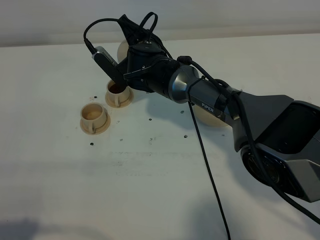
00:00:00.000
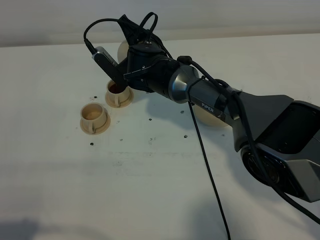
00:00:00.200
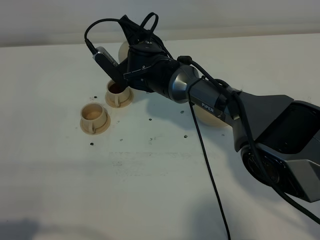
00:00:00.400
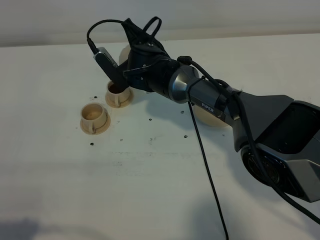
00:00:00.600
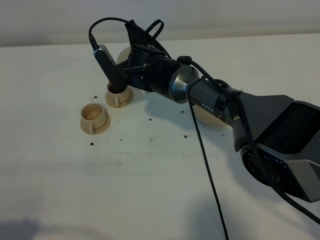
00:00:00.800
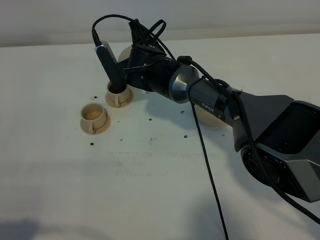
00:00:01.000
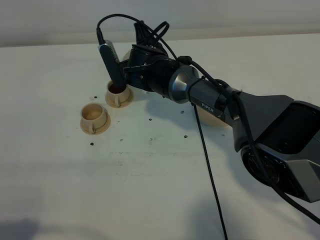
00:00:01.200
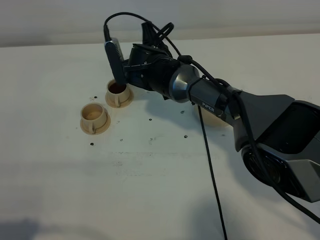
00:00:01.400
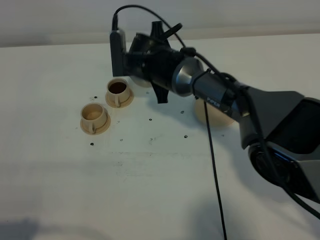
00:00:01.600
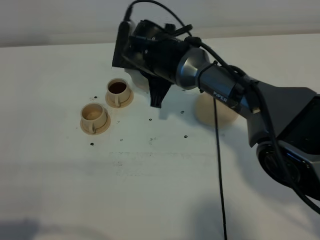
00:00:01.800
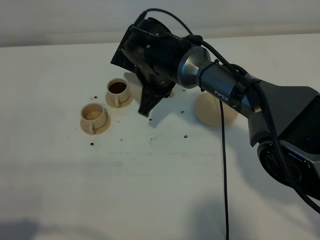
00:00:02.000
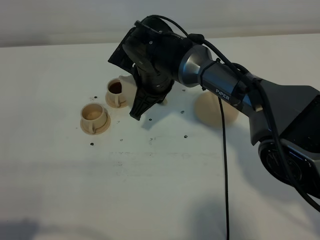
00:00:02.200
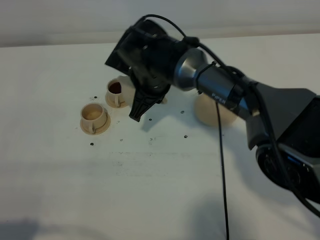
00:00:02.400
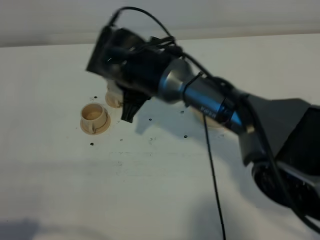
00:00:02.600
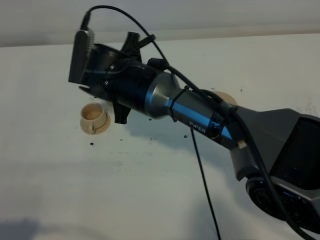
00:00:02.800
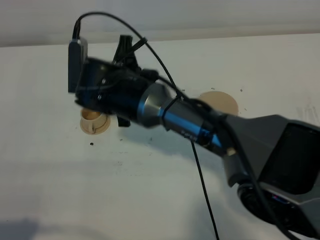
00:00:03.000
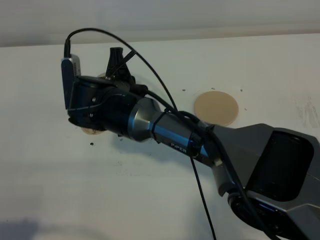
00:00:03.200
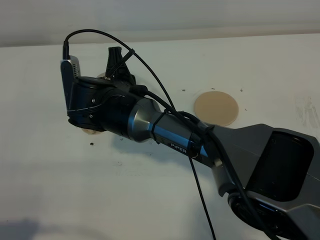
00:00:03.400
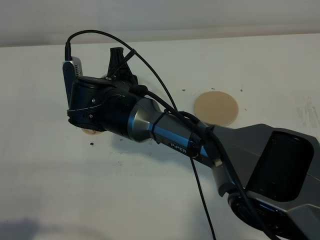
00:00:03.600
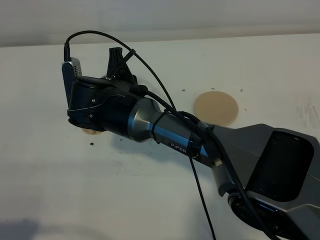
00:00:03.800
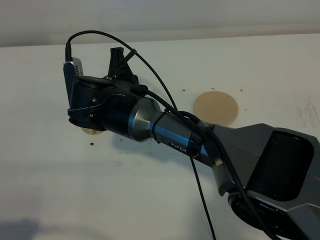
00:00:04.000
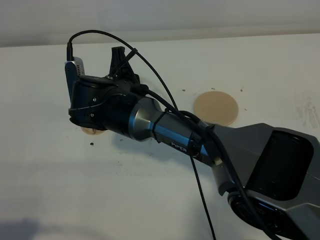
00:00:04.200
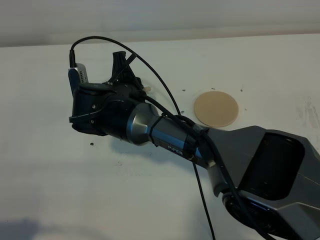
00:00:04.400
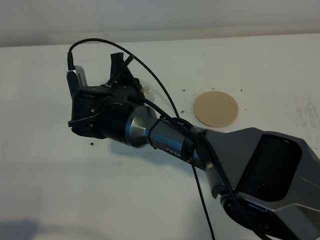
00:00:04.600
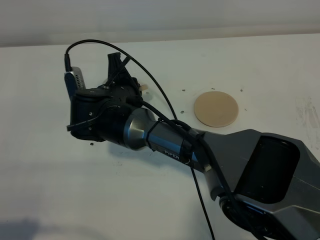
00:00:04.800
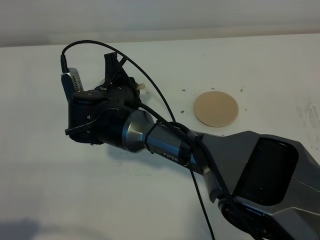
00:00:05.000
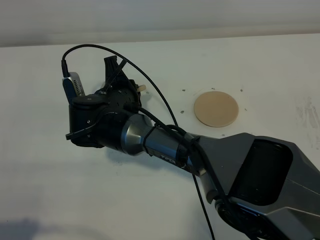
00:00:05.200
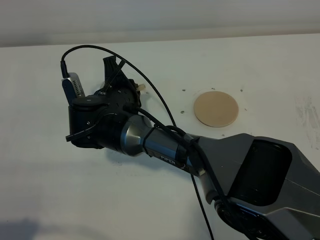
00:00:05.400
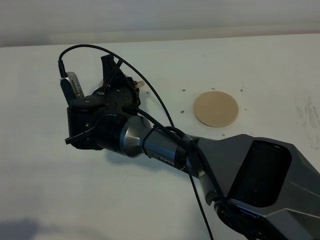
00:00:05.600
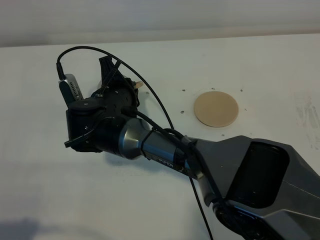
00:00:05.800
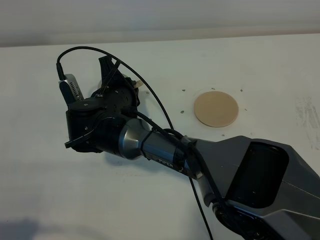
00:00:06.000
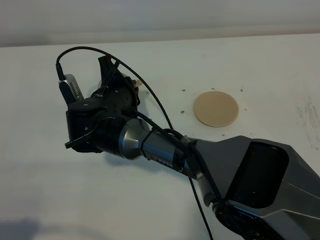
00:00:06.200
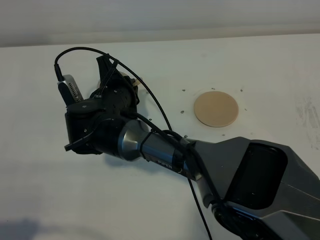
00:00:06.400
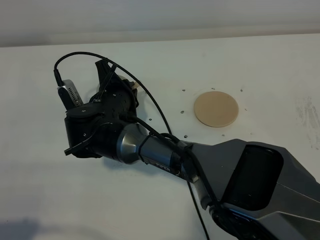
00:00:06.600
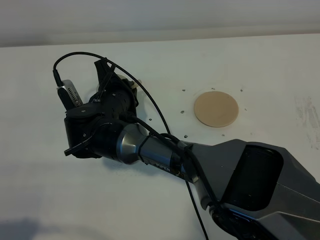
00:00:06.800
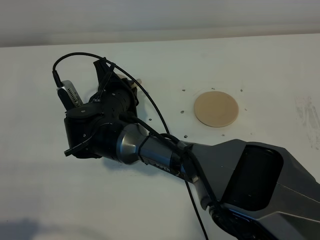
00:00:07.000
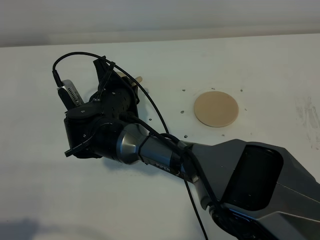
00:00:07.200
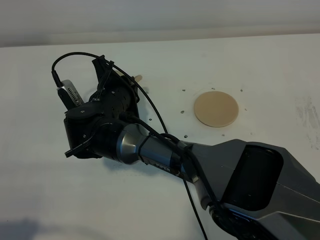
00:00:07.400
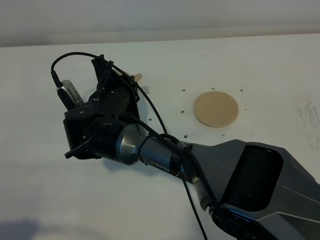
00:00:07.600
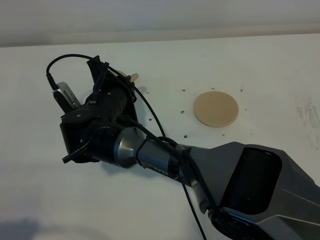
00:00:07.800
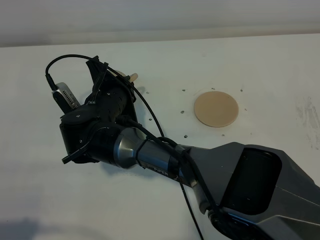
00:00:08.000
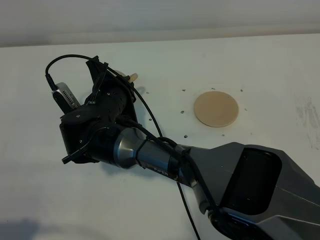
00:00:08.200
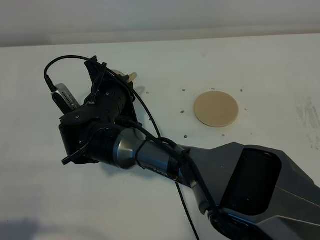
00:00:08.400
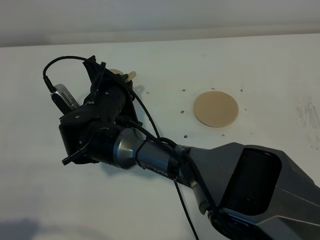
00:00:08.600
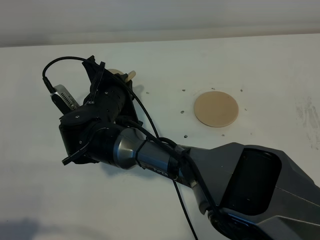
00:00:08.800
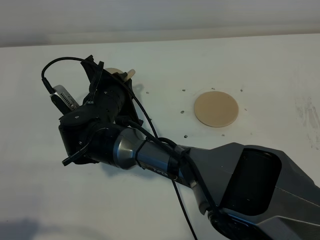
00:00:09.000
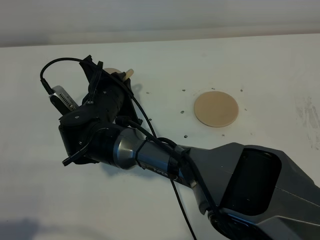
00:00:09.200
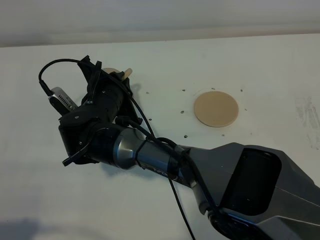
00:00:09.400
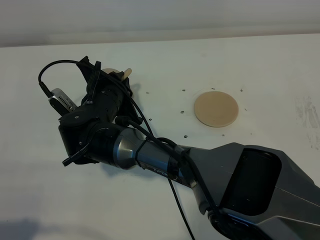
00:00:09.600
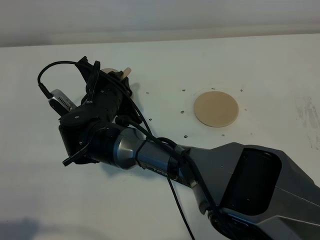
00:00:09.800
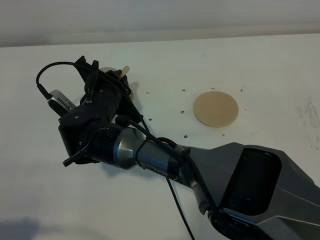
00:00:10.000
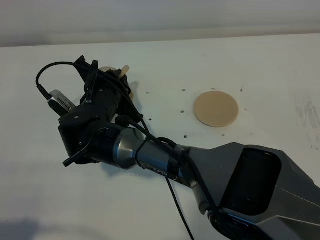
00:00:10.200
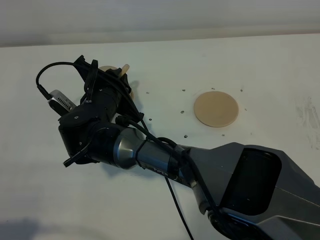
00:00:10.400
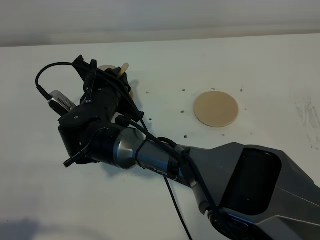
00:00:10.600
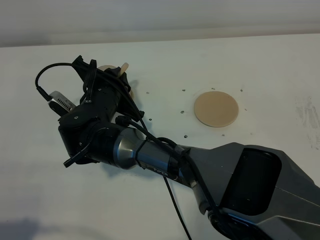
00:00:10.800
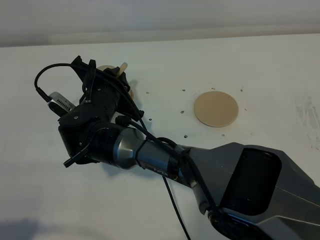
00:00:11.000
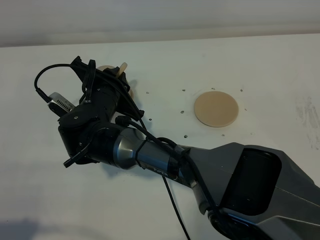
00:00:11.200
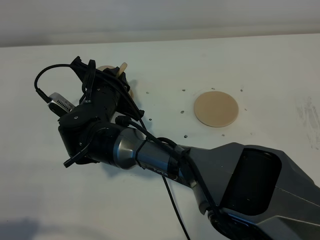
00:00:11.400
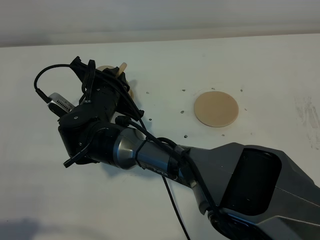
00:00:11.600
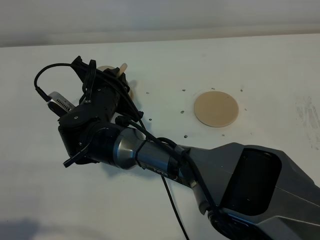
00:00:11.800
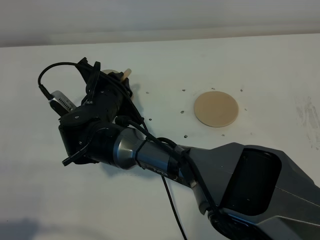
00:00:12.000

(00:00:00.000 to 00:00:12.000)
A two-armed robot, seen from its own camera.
Task of the whole recording: grasp the brown teapot and pour the tea into the two brown teacups one by one, put the brown teapot back in its original place.
00:00:01.600 - 00:00:03.000: The right gripper is displaced backward and to the left by approximately 10 cm.
00:00:04.400 - 00:00:06.000: There are only small adjustments of the grippers.
00:00:06.000 - 00:00:09.000: The grippers stay close to where they were, moving slightly.
00:00:09.000 - 00:00:10.400: The grippers stay close to where they were, moving slightly.
00:00:10.400 - 00:00:12.000: Both grippers stay put.

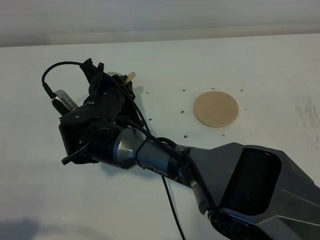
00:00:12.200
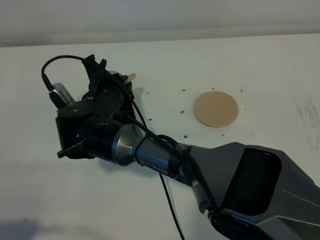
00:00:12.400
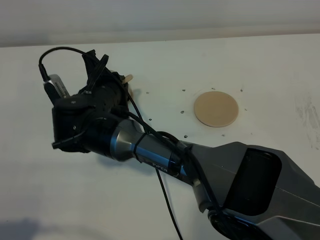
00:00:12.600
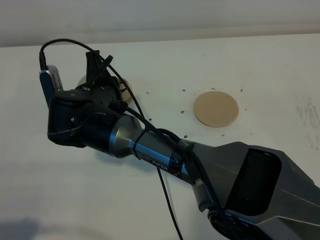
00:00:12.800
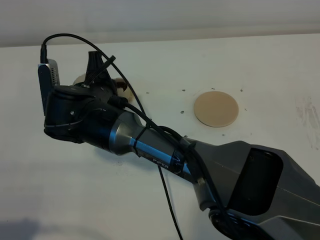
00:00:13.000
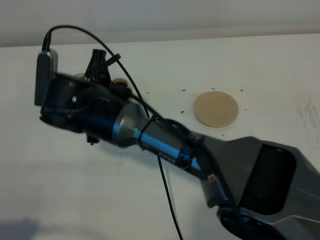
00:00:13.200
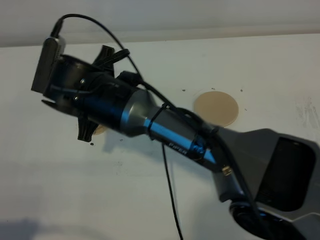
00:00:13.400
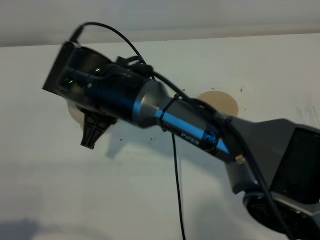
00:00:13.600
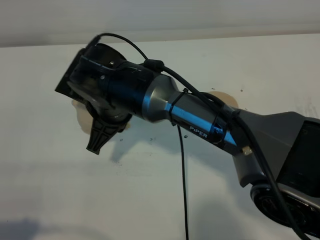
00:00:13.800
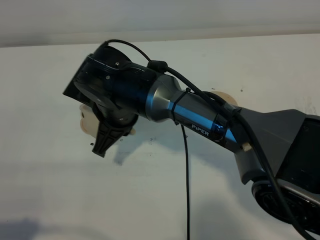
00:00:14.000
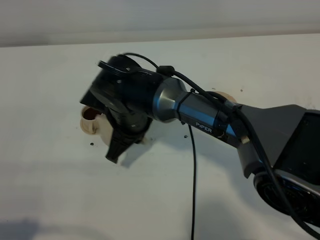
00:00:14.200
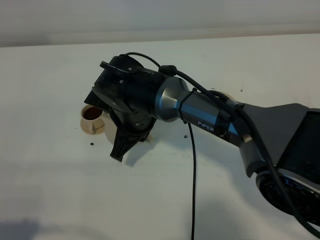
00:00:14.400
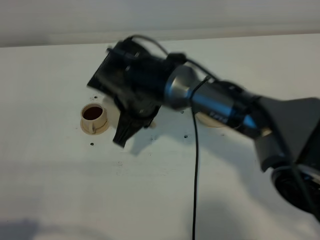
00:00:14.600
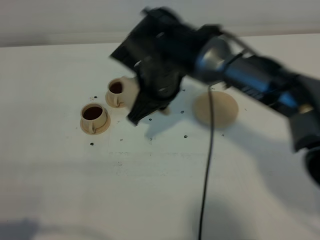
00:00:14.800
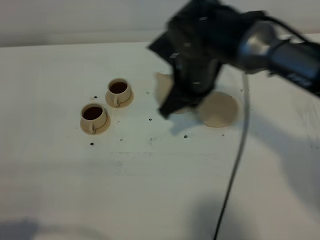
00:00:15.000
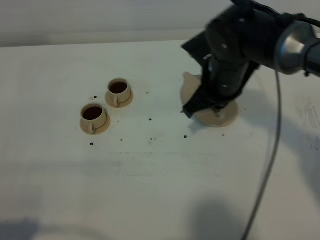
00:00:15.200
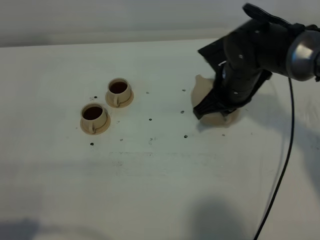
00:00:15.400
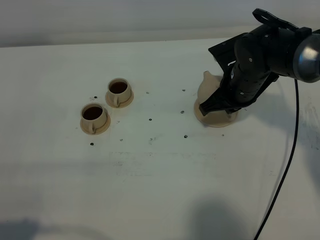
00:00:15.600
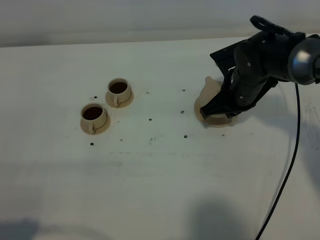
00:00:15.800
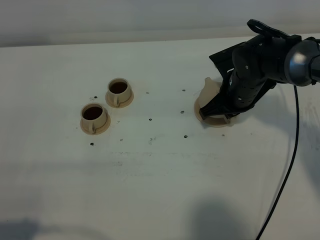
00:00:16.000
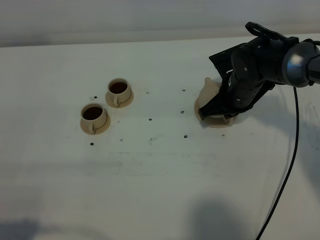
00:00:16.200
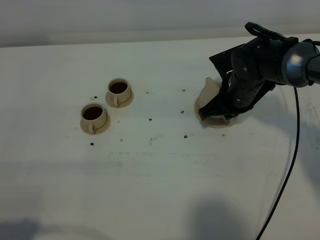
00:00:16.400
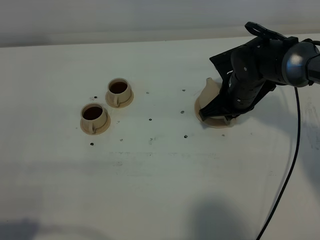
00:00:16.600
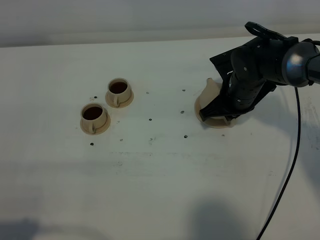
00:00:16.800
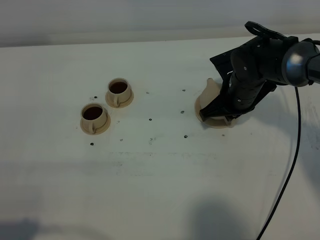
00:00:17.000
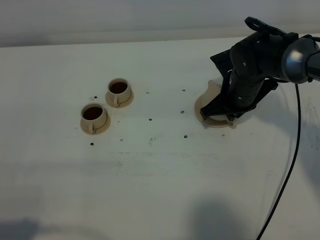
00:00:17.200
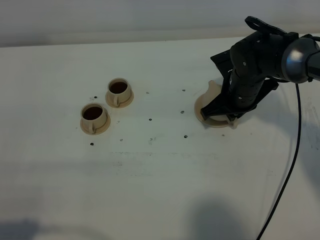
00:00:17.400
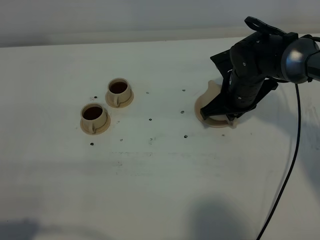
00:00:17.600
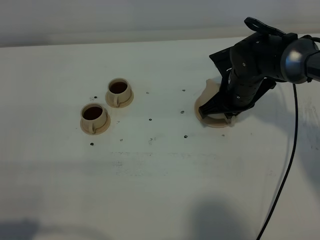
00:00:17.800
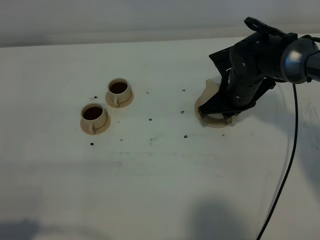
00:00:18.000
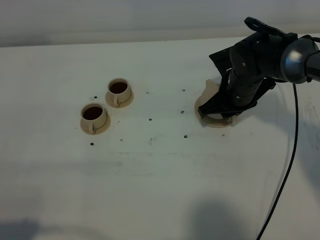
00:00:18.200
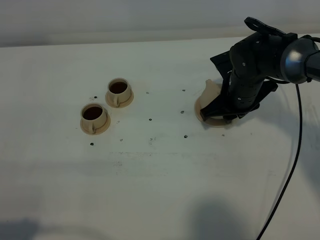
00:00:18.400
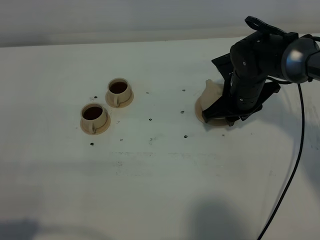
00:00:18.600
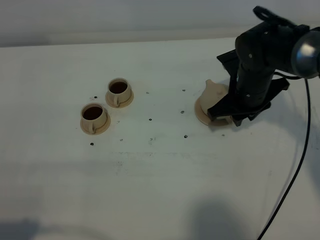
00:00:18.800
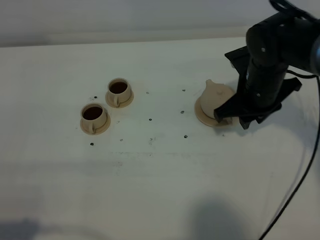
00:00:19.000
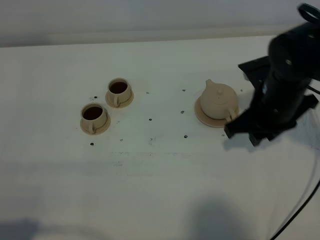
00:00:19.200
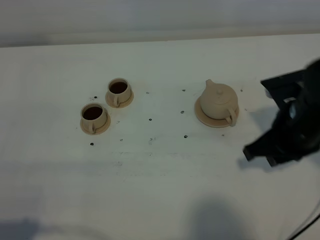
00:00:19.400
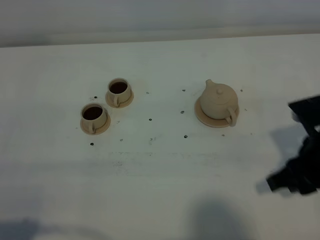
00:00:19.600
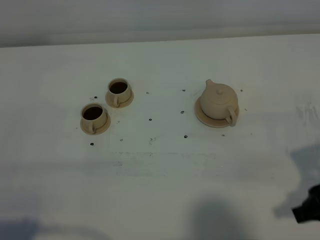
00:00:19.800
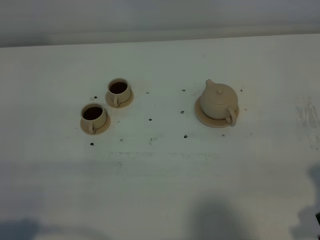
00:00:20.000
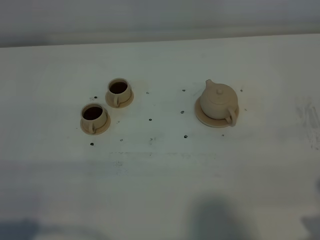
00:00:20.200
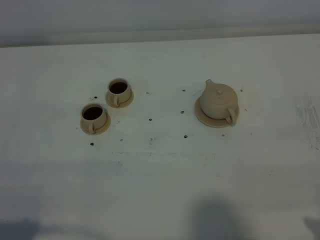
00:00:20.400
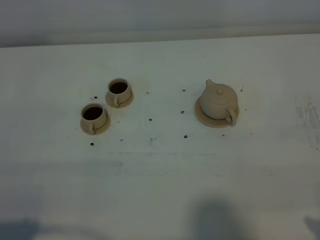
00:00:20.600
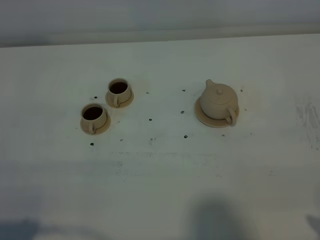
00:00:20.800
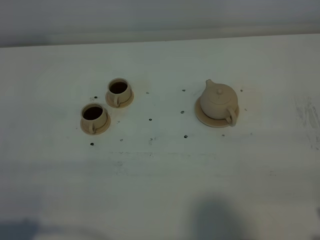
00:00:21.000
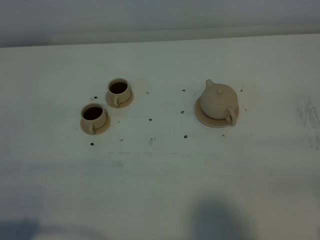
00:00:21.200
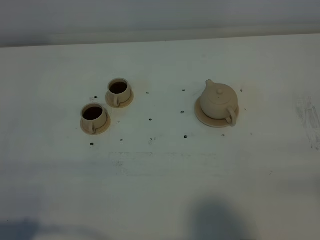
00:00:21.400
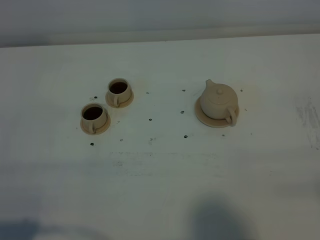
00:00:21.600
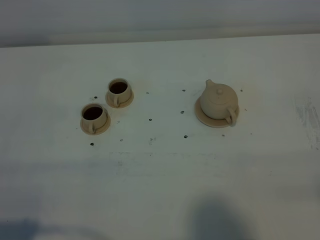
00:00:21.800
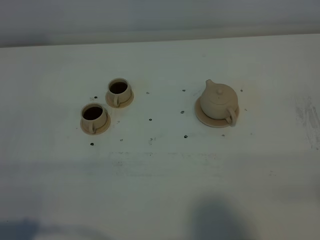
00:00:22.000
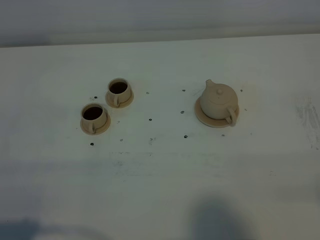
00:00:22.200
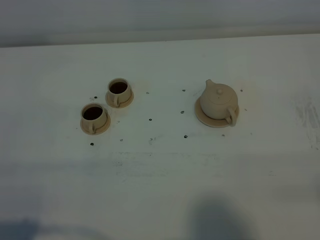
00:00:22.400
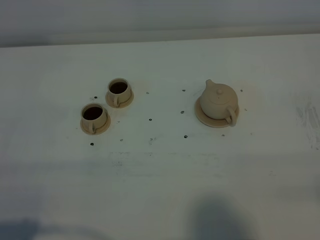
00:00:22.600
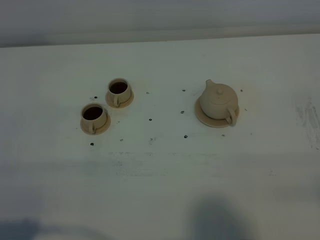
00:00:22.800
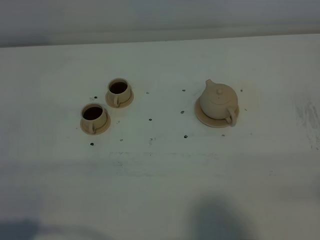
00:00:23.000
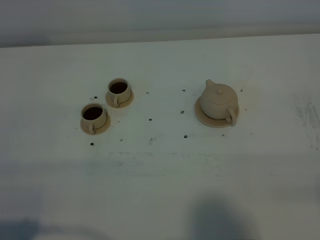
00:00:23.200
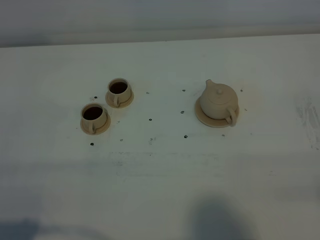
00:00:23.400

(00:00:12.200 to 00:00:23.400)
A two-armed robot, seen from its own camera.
Task of the whole recording: grasp the brown teapot and pour the tea into the two brown teacups one by one, put the brown teapot back in its original place.
00:00:12.200 - 00:00:13.800: The right gripper shifts approximately 5 cm upward.
00:00:13.800 - 00:00:15.400: The right gripper moves to the right, roughly 20 cm.
00:00:15.400 - 00:00:17.000: The grippers stay close to where they were, moving slightly.
00:00:17.000 - 00:00:18.600: The right gripper opens.
00:00:18.600 - 00:00:20.200: The right gripper heads backward and to the right, covering roughly 35 cm, and opens.
00:00:21.800 - 00:00:23.400: Both grippers stay about where they are.
